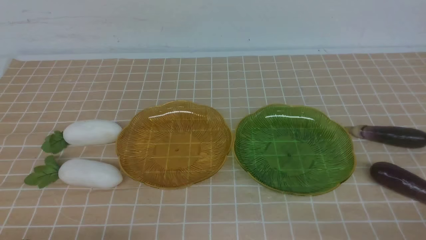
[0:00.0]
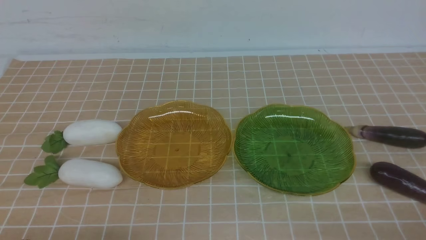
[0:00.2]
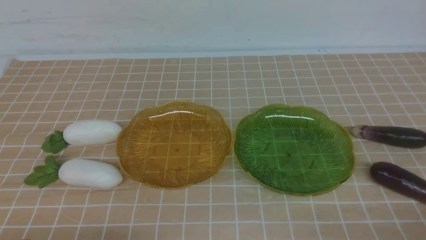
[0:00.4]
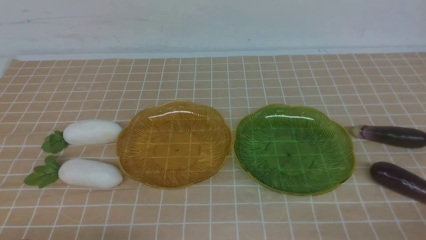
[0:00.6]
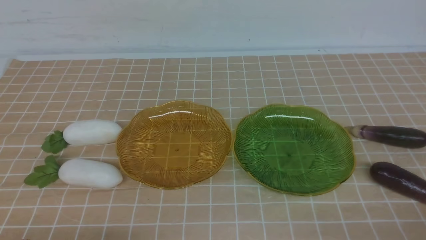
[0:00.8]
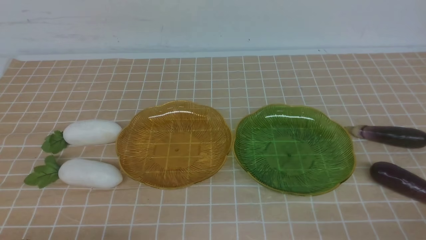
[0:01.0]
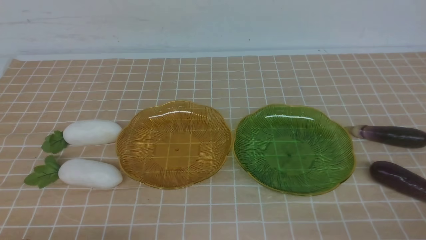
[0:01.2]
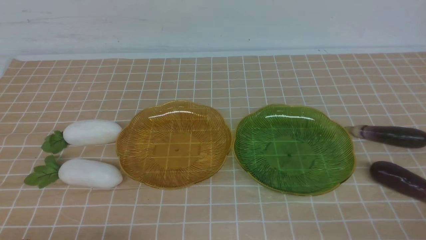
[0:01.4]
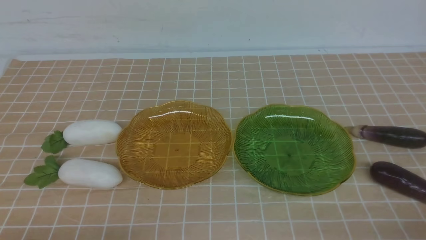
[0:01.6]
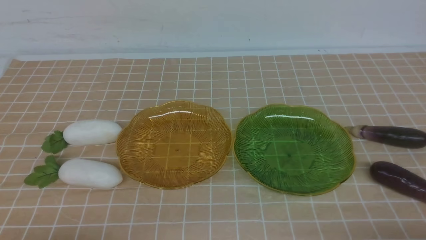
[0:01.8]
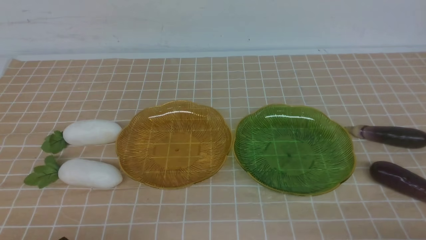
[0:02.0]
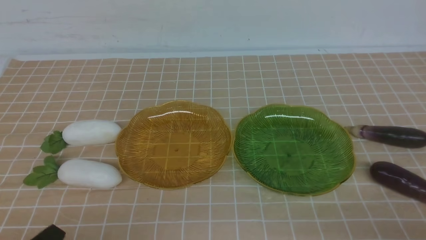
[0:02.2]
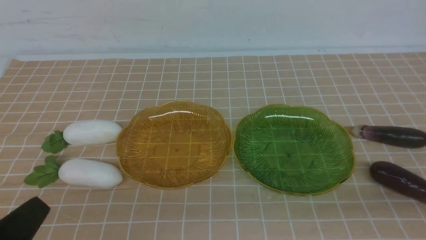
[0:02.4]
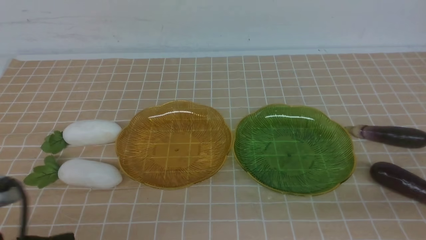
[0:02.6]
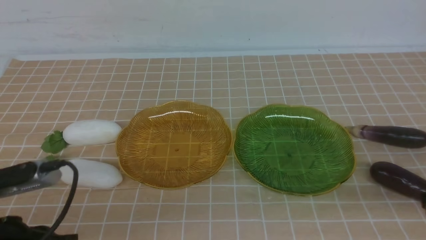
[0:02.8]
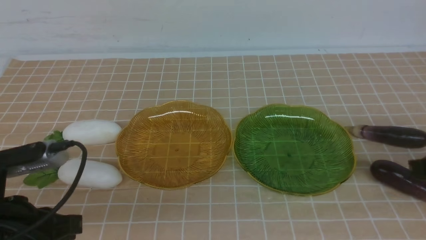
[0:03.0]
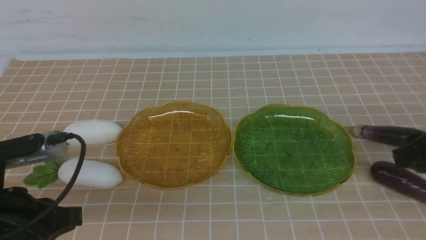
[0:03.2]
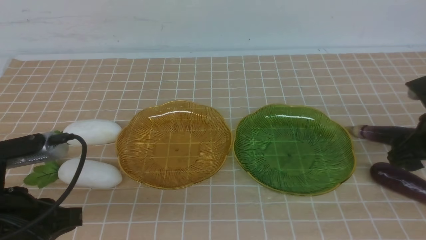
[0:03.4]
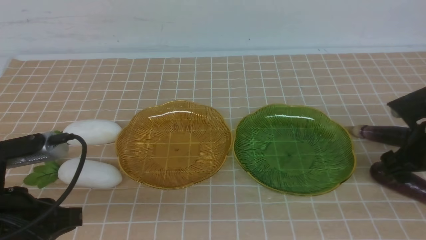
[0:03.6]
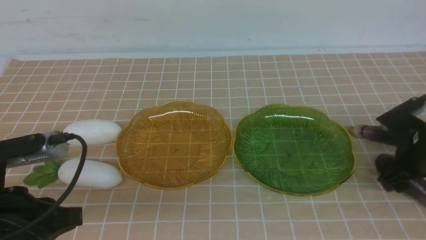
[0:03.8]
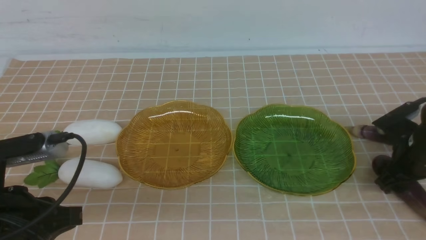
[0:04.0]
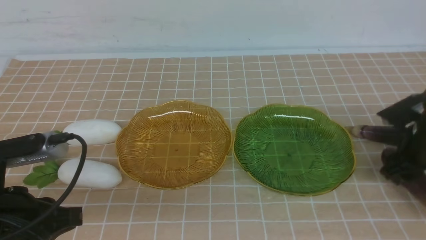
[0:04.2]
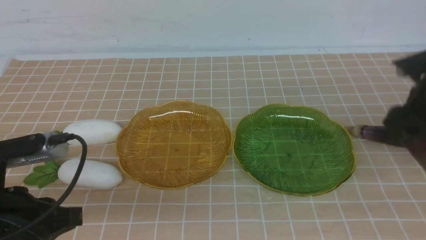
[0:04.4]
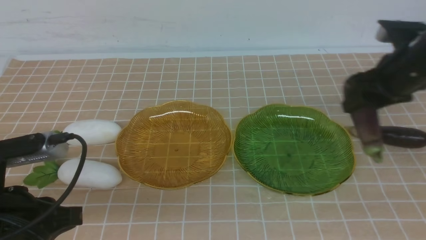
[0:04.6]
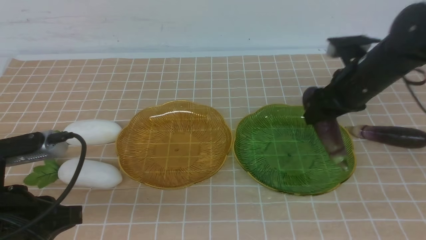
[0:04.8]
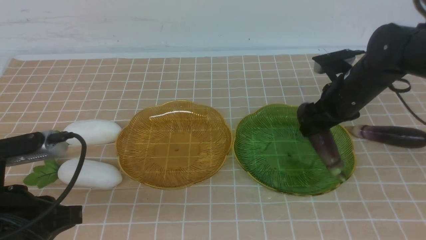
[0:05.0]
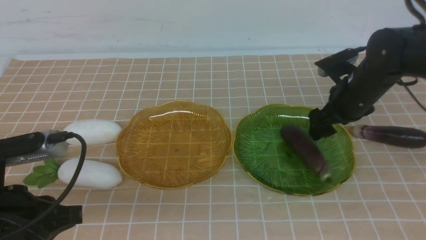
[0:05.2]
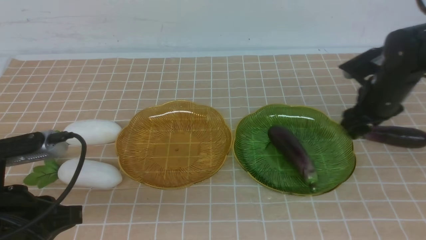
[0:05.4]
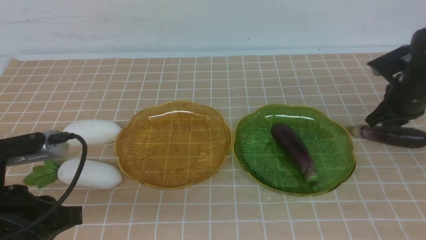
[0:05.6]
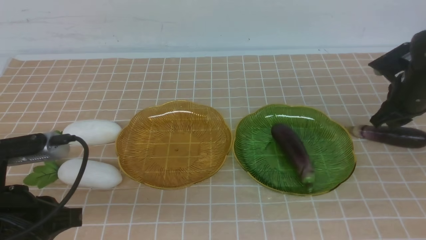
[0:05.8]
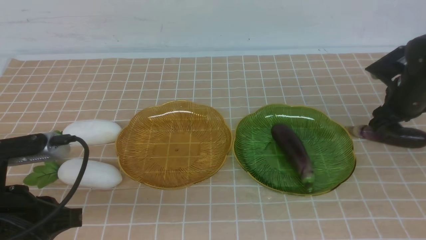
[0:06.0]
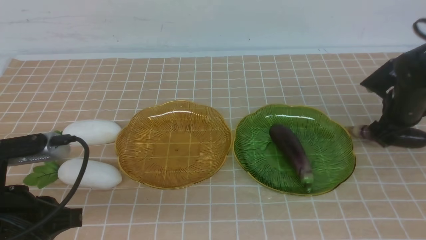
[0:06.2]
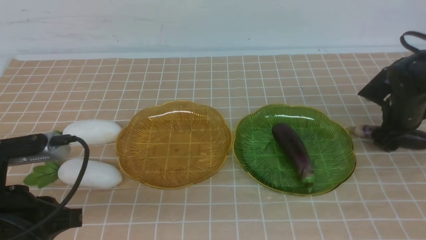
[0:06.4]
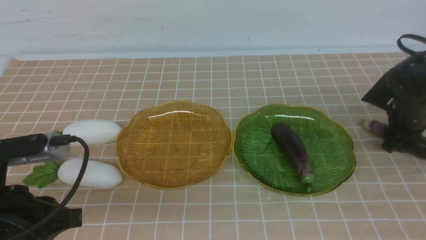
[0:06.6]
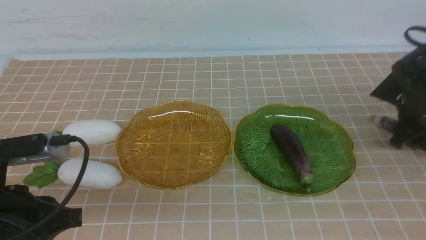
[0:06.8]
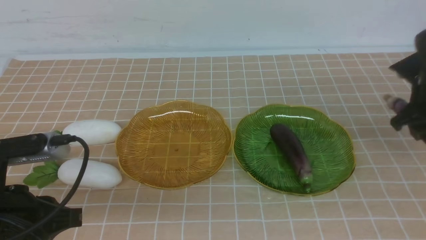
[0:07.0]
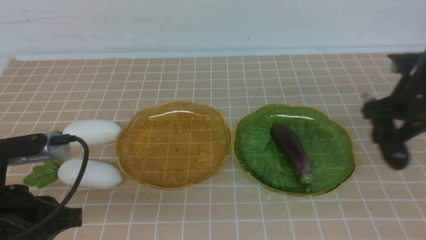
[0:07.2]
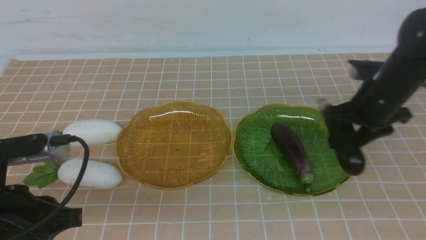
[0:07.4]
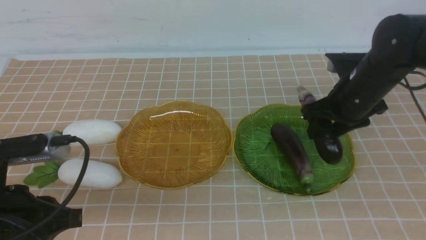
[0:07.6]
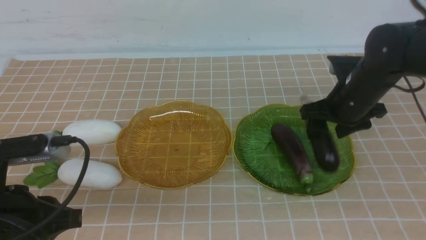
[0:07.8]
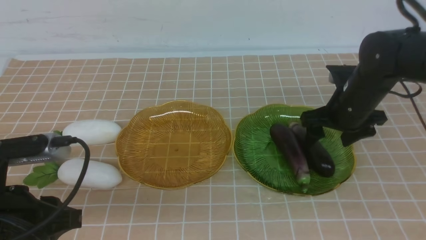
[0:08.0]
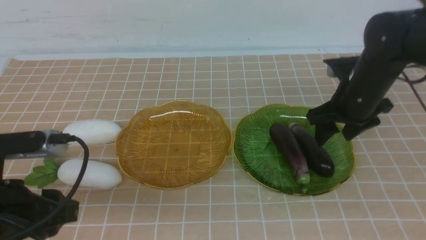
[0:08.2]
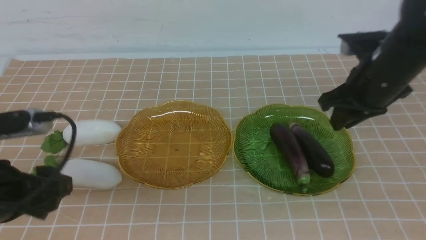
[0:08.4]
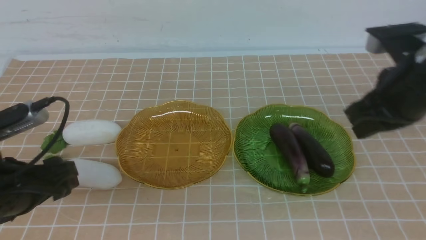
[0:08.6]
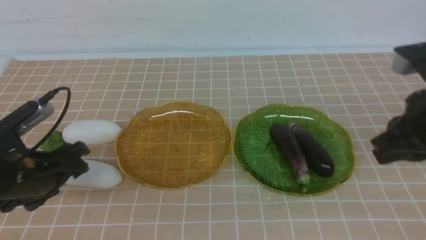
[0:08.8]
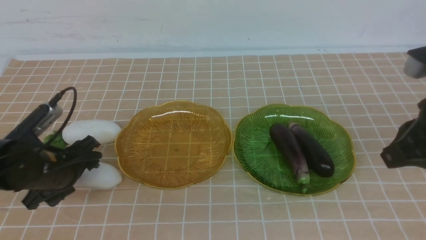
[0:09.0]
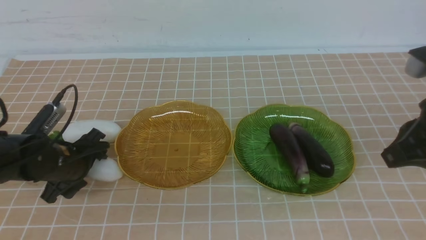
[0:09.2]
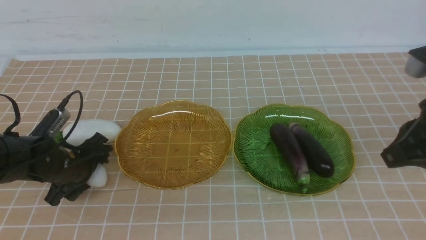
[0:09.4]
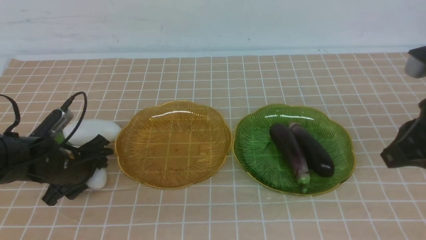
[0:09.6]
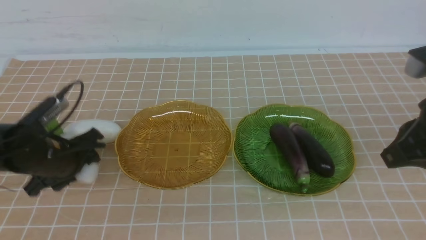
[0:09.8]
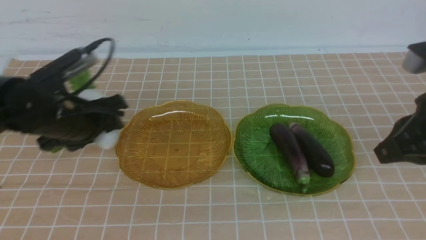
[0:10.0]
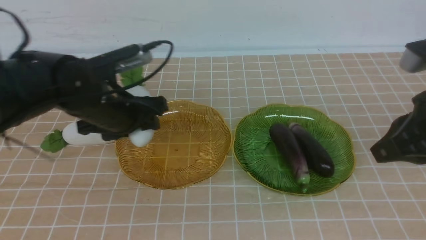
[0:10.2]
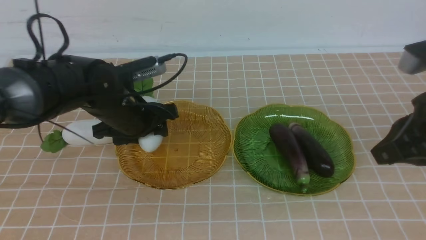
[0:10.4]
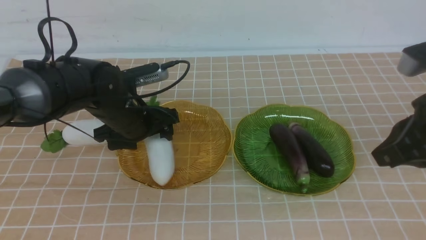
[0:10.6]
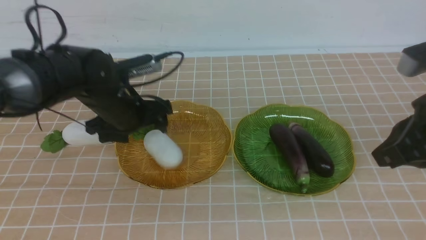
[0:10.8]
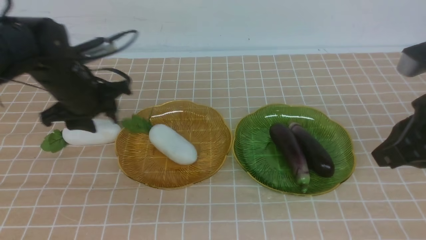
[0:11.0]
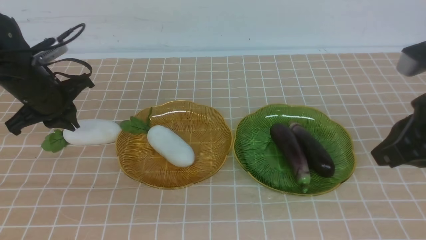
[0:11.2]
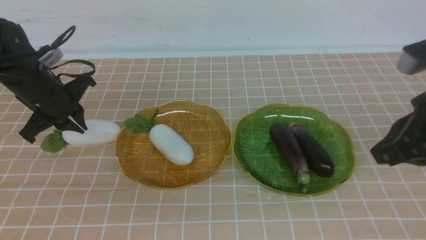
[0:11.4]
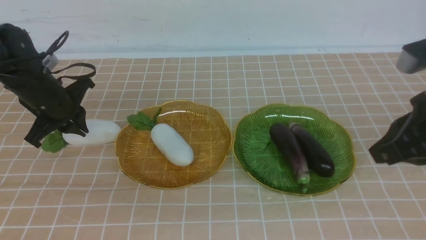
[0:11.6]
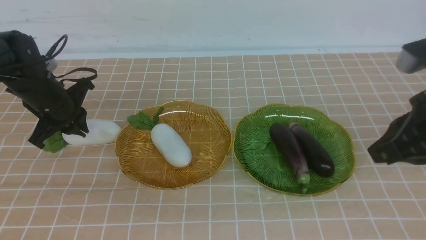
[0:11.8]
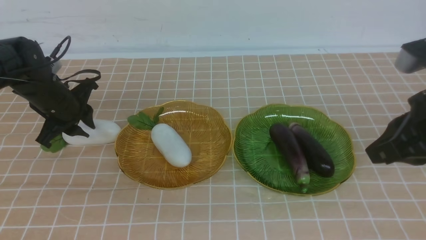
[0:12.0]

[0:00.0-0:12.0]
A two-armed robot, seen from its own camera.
Step, 0:00.0 to 0:05.2: use the right arm to grab an eggplant and put it into the right plate.
Step, 0:05.6 to 0:08.2: use the right arm to grab an eggplant and put it into the right plate.
0:01.6 to 0:03.0: The right gripper shifts about 20 cm forward and upward, and opens its fingers, while the left gripper is displaced upward and forward by approximately 15 cm.
0:03.0 to 0:04.4: The right gripper moves forward, about 10 cm, and travels downward and back again, some 10 cm each way.
0:04.4 to 0:06.0: The right gripper moves forward, some 5 cm, and travels to the left and back again, some 10 cm each way.
0:06.0 to 0:07.6: The right gripper travels to the left by roughly 10 cm.
0:07.6 to 0:09.0: The right gripper shifts roughly 20 cm backward and upward, and closes; the left gripper shifts approximately 15 cm forward and downward, and opens its fingers.
0:09.0 to 0:10.4: The left gripper heads to the right, forward and upward, covering some 15 cm.
0:10.4 to 0:12.0: The left gripper moves to the left and forward, some 15 cm, and closes, then reopens.

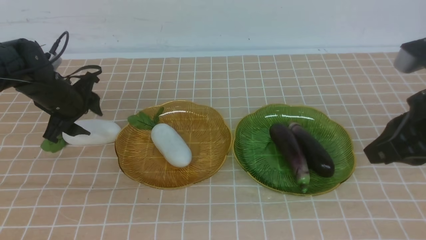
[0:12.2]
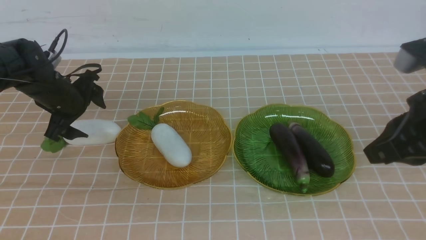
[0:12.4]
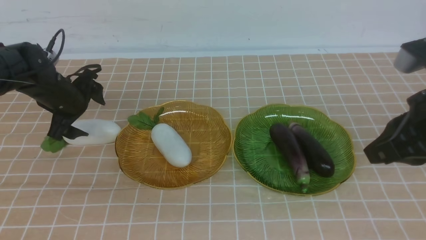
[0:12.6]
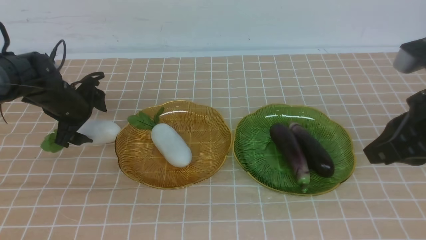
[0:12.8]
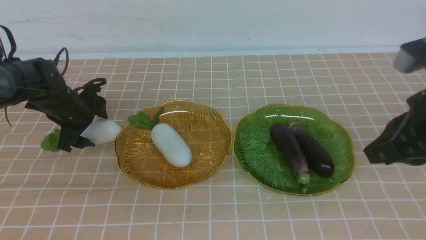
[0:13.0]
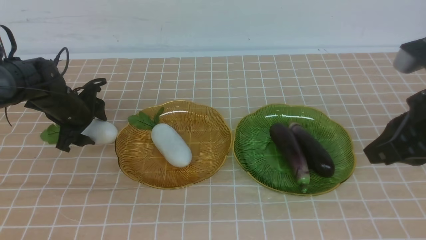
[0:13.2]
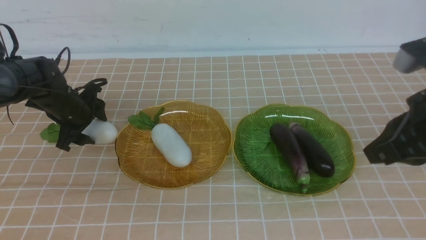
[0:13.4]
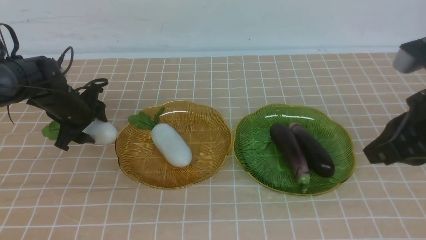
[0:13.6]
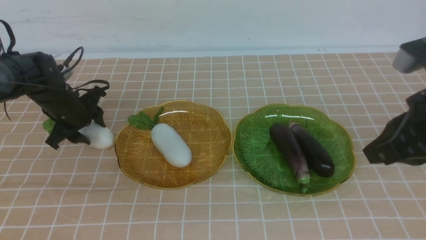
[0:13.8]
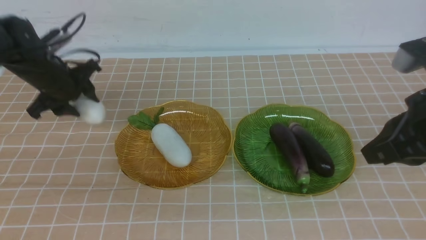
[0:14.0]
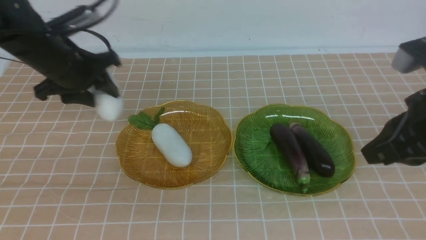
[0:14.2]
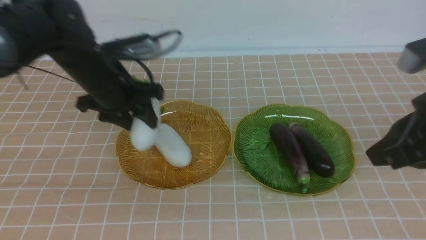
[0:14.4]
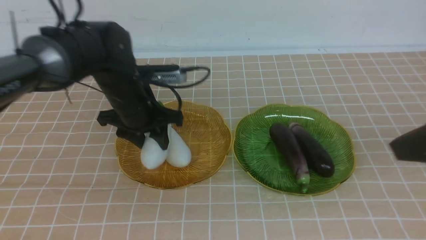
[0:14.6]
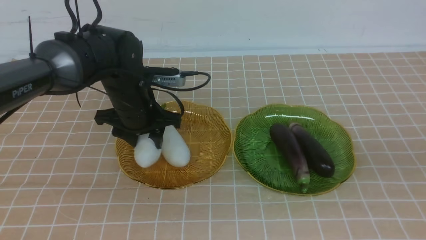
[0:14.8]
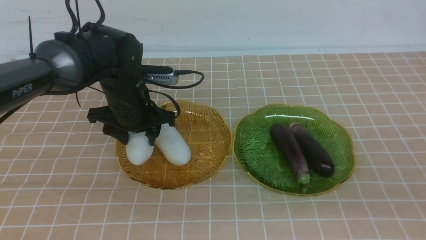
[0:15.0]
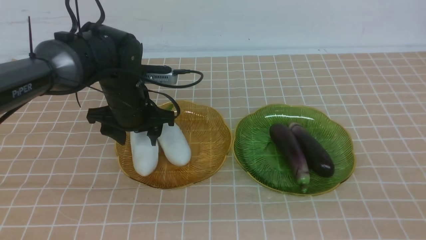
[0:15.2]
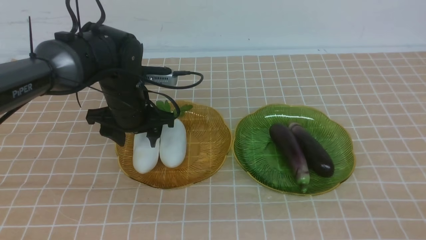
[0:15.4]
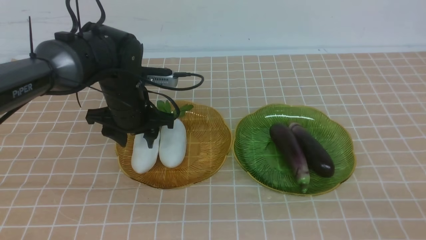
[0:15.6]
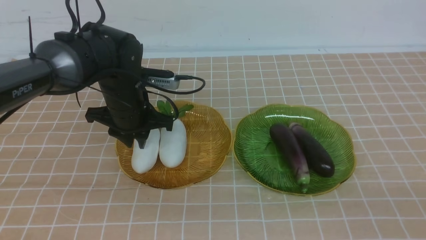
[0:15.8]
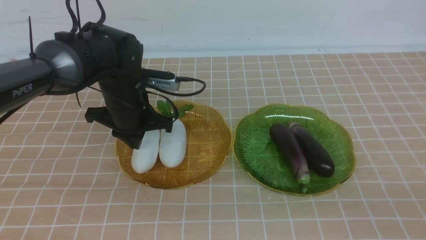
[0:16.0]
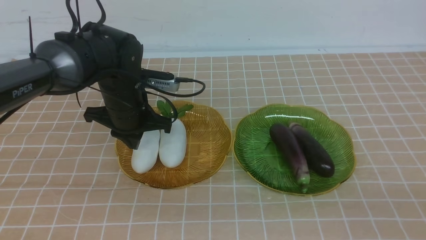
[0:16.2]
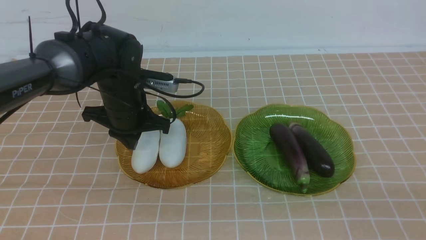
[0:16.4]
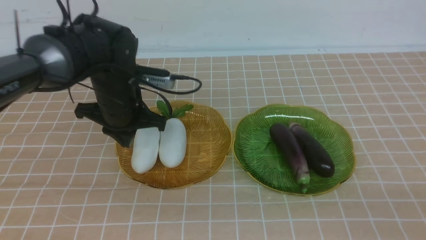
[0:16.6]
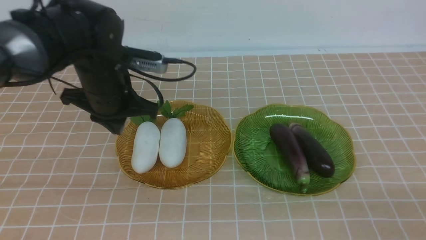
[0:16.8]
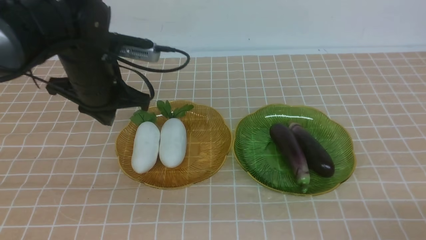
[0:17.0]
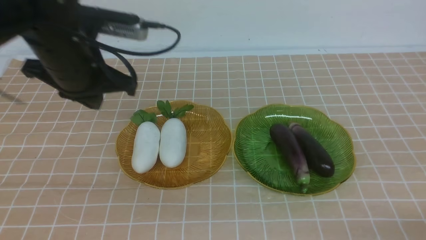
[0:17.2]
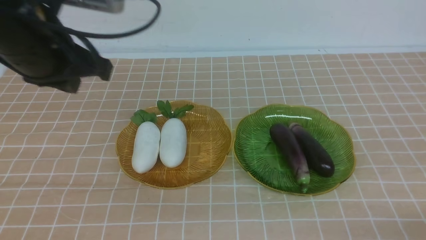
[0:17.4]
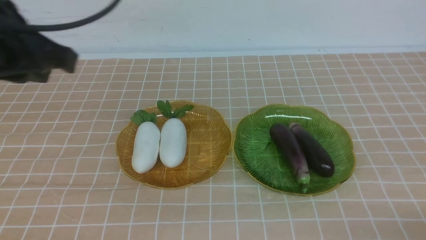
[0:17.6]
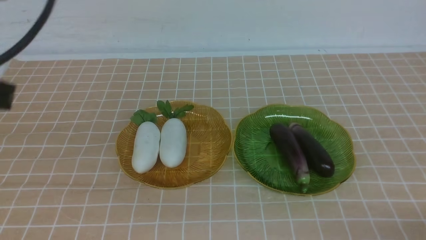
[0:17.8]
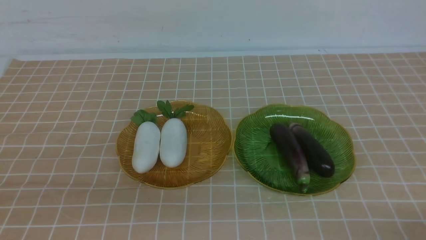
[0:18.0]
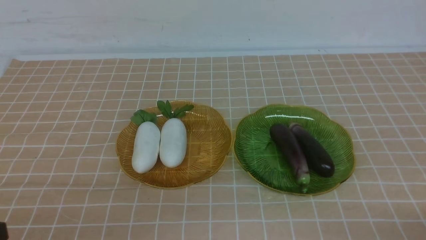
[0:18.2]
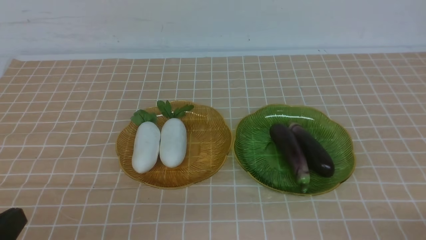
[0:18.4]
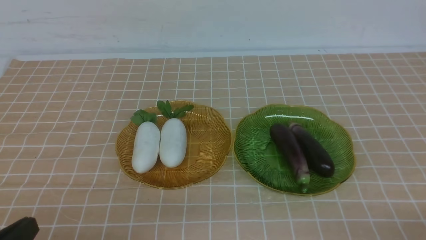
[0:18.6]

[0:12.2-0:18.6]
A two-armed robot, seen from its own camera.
Step, 0:12.2 to 0:16.6: use the left arm to grab a radish and put it into the left plate.
0:12.2 to 0:13.8: The left gripper moves upward, roughly 5 cm, and closes.
0:13.8 to 0:15.4: The left gripper moves to the right, some 10 cm. Meanwhile the right gripper shifts about 20 cm backward.
0:15.4 to 0:17.0: The right gripper goes about 15 cm downward and forward, while the left gripper moves upward and backward, roughly 20 cm, and closes.
0:17.0 to 0:18.6: The left gripper travels backward and downward by some 30 cm.
